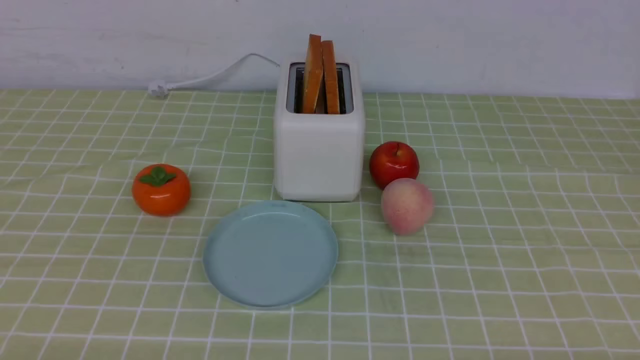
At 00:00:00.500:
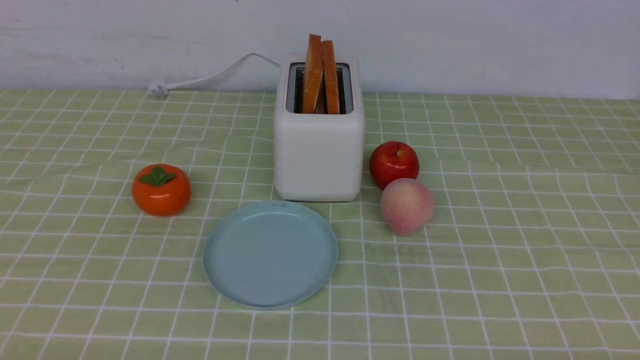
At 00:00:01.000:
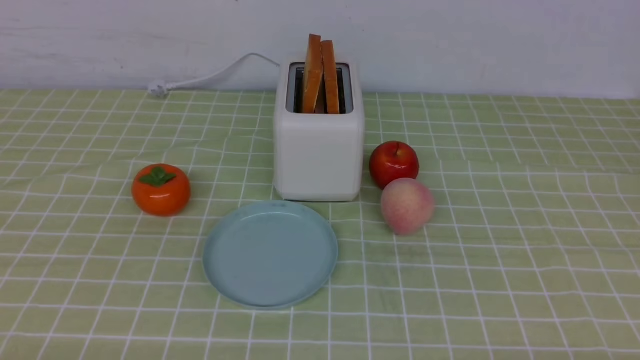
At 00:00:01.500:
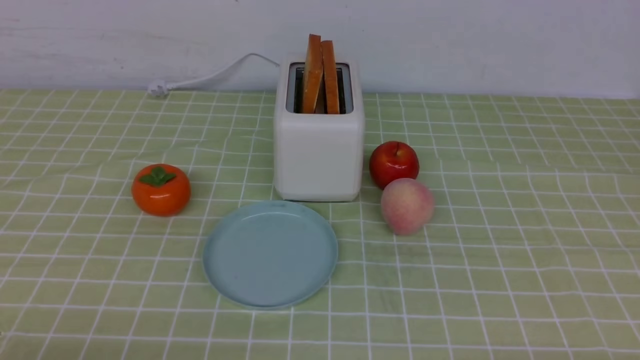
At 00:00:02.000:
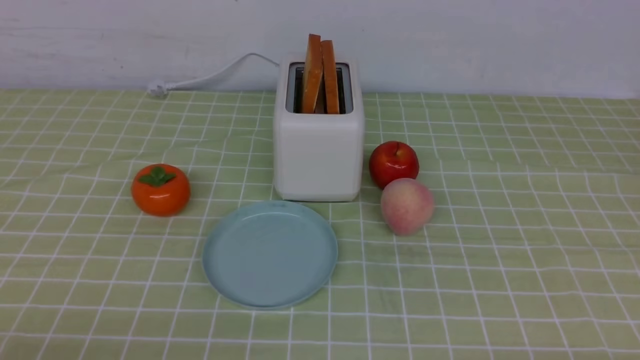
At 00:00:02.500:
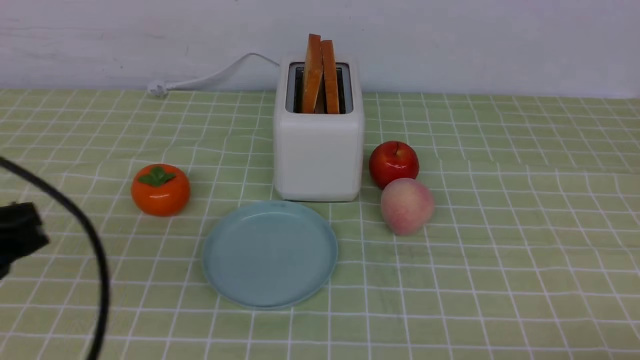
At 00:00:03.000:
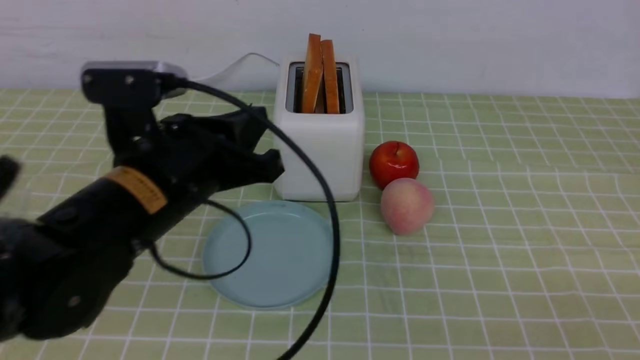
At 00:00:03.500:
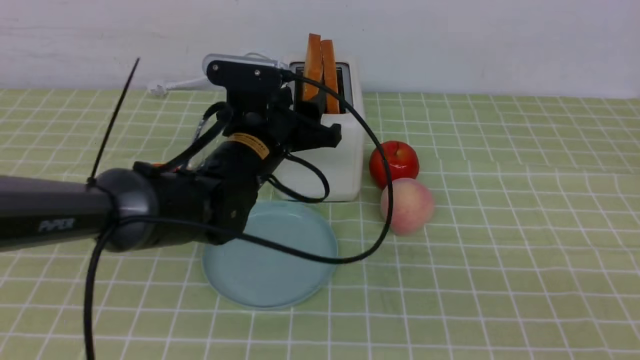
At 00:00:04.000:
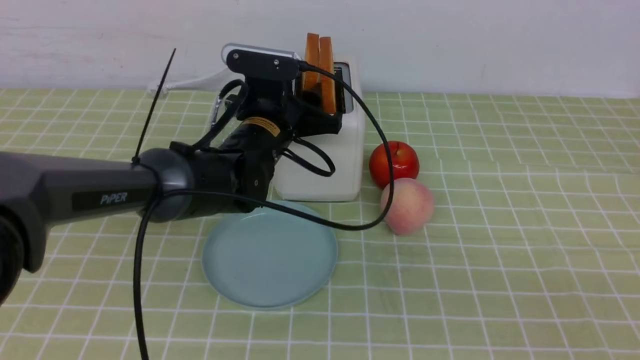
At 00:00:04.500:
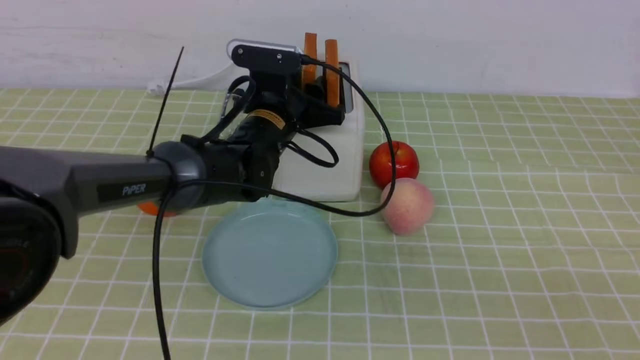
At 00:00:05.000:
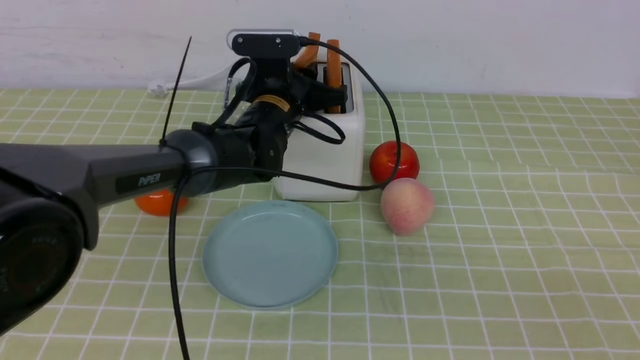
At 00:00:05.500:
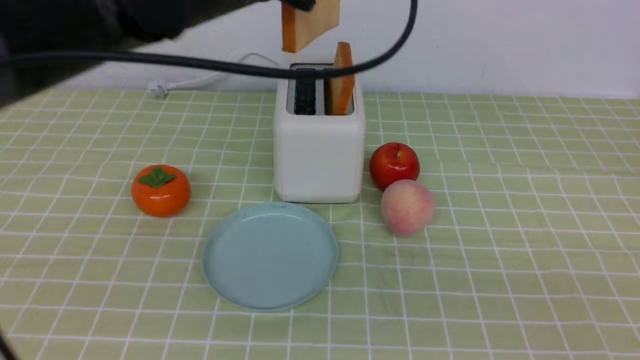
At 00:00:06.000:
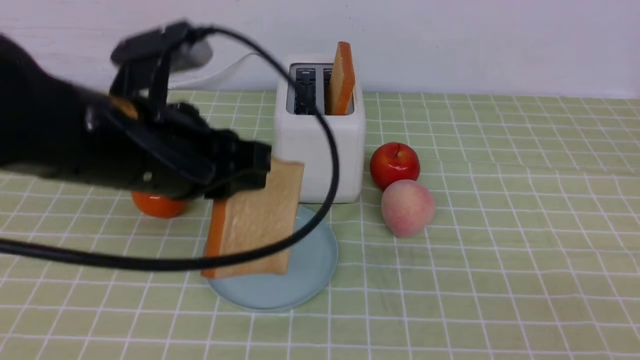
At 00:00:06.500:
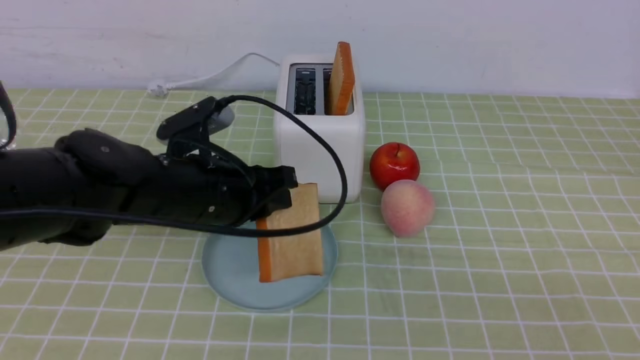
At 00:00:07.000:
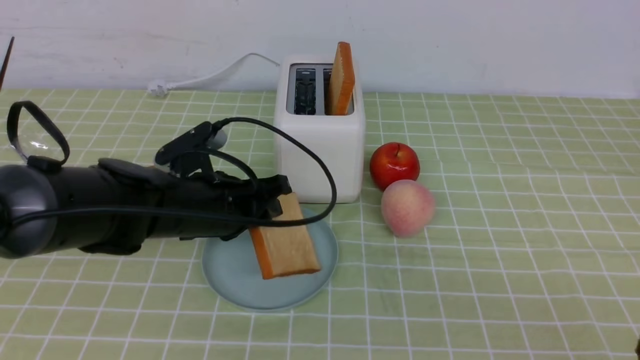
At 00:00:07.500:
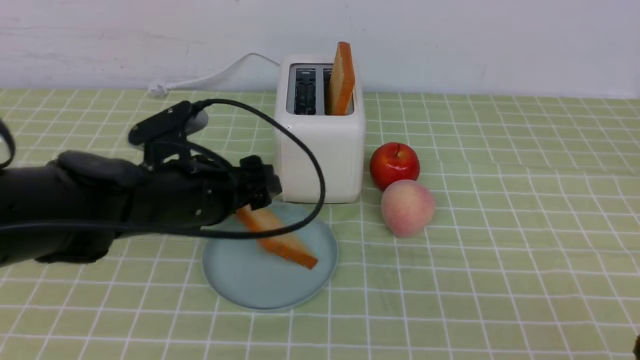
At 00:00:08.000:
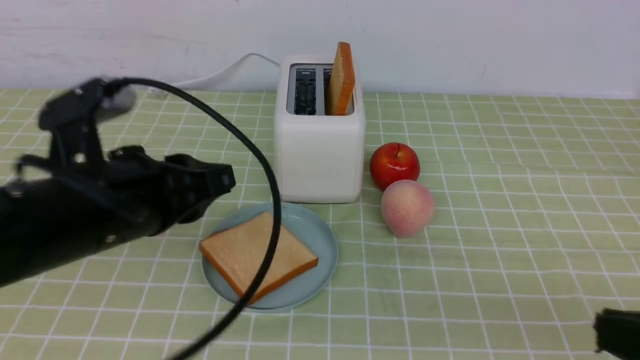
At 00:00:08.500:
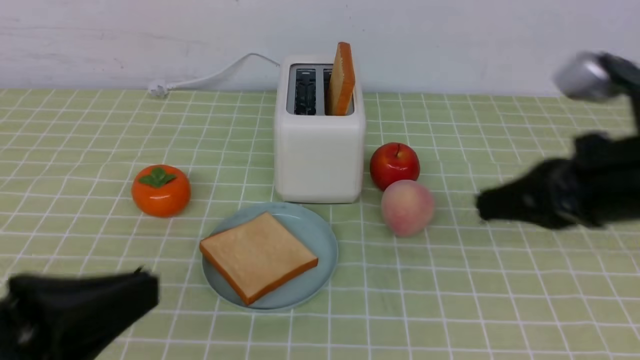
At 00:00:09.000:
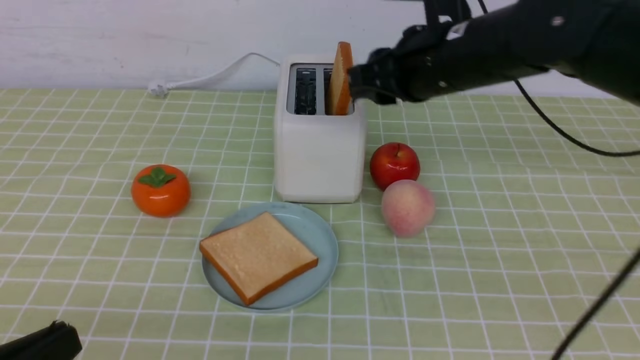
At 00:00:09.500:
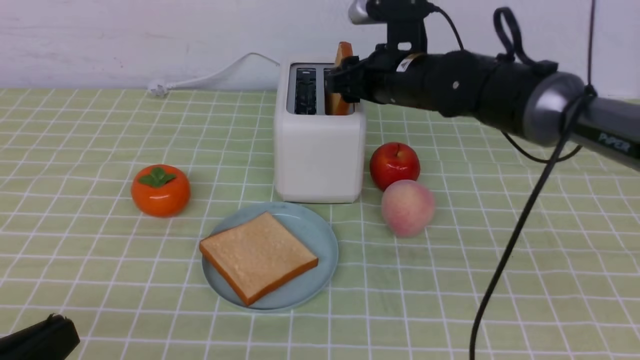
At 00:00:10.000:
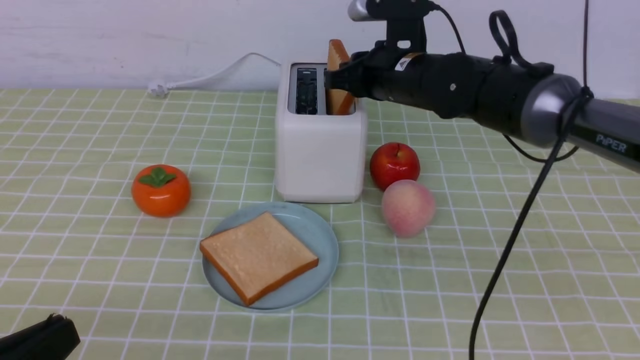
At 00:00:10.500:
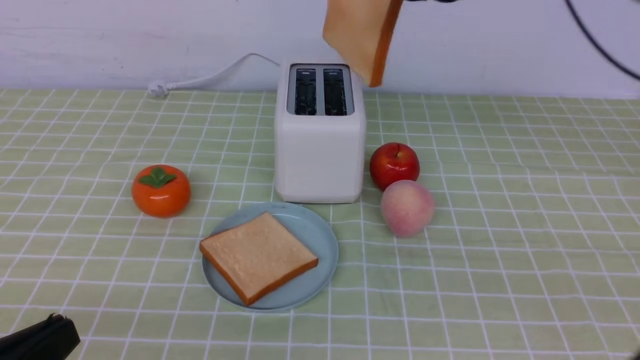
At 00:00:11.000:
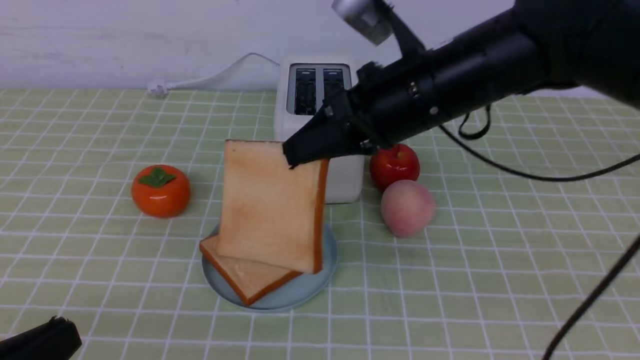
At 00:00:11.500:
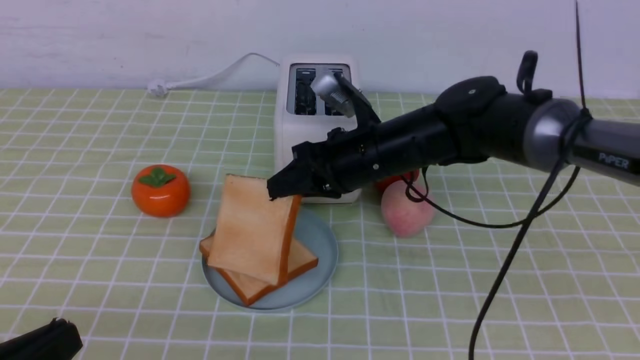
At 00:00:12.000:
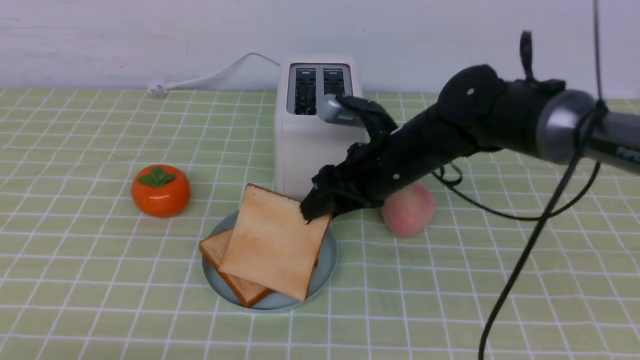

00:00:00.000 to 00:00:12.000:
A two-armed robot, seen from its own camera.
Task of the whole recording: take toasted bread from bread machine on green coffee tablecloth place on plate.
Step, 00:00:00.000 to 00:00:05.000: use the left arm to take out a slice of bread.
Step, 00:00:05.500 to 00:00:07.500: use the left arm to put a slice of bread into the empty plate.
Step, 00:00:08.000 to 00:00:10.000: use the right arm to take out a slice of bread.
00:00:02.000 to 00:00:04.000: The left gripper heads forward and to the right, covering some 40 cm, and opens up. Meanwhile the right gripper goes some 15 cm upward, and closes.
00:00:04.000 to 00:00:06.000: The left gripper heads backward, upward and to the left, covering about 20 cm, and closes up.
00:00:06.000 to 00:00:08.000: The left gripper shifts approximately 5 cm backward, travels downward and back again, roughly 15 cm each way, and opens and closes again.
00:00:08.000 to 00:00:10.000: The left gripper is displaced backward and to the left by roughly 15 cm. The right gripper goes approximately 40 cm forward and to the left, and opens, then closes once more.
00:00:10.000 to 00:00:12.000: The left gripper shifts about 5 cm downward, while the right gripper shifts some 10 cm backward, goes upward and returns, approximately 10 cm each way, and opens its fingers.

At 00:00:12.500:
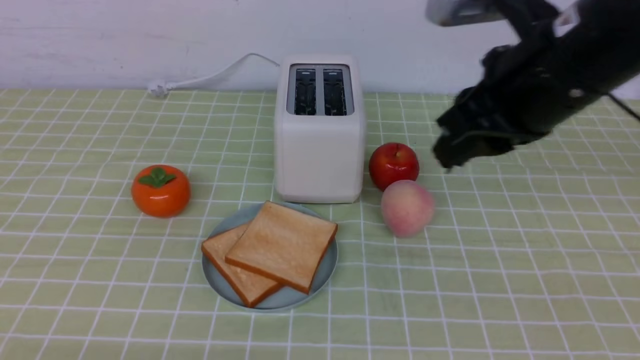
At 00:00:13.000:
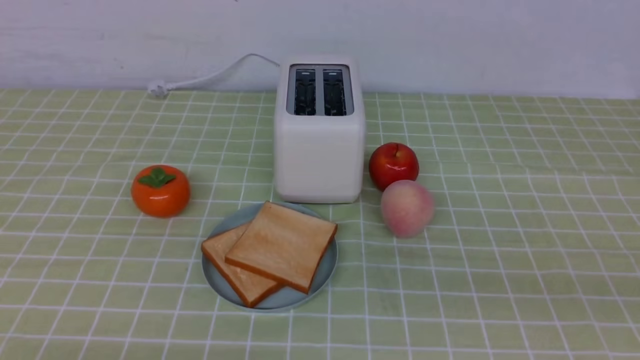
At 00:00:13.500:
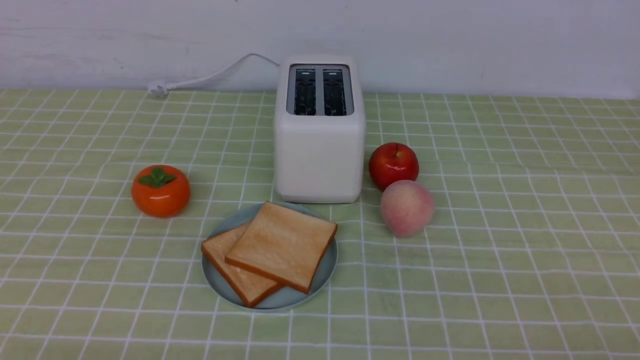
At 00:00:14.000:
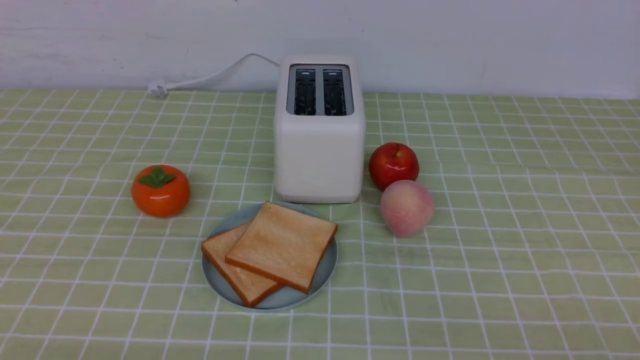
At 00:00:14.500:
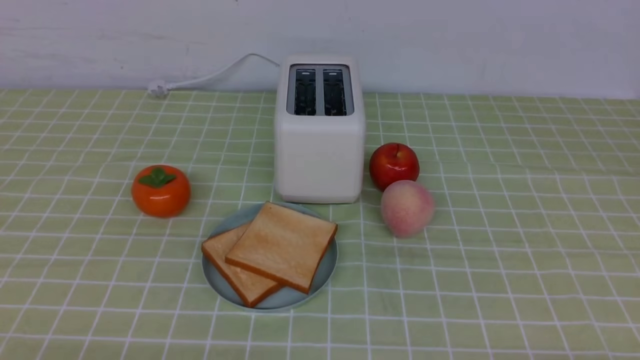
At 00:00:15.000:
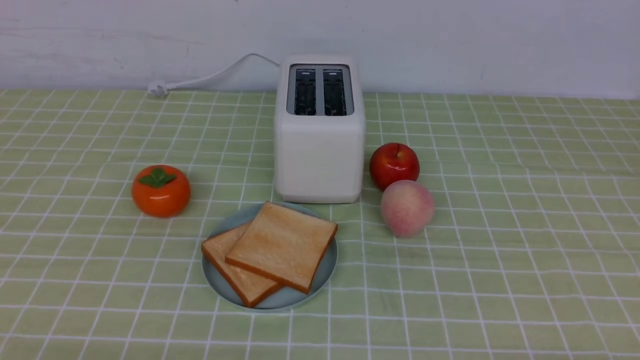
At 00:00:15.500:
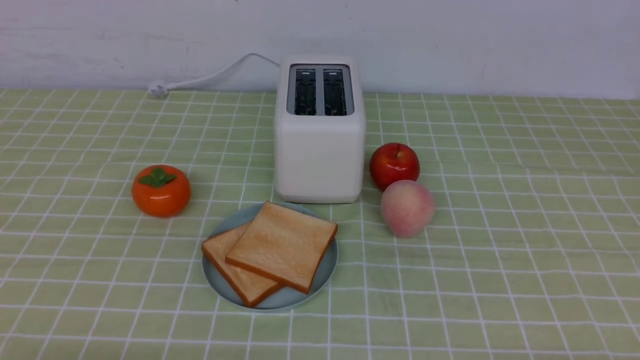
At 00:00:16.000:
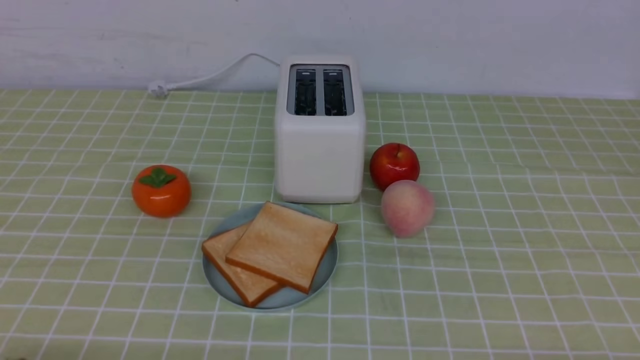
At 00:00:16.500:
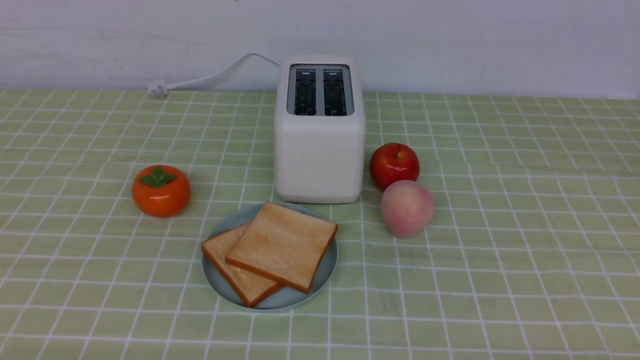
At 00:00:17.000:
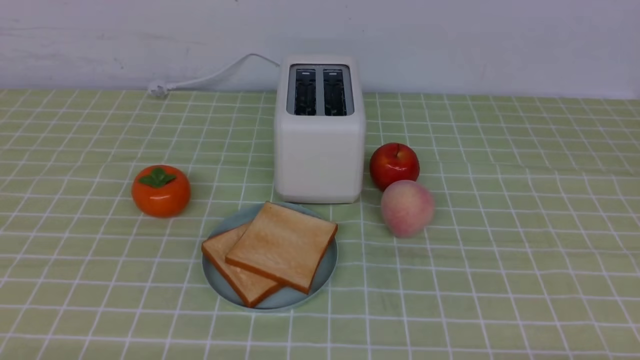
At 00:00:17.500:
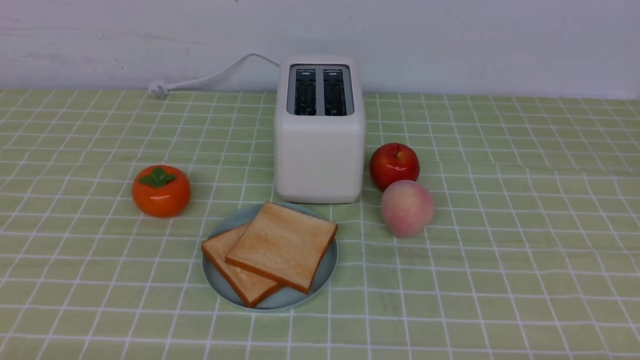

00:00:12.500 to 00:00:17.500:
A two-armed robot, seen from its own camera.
Task of the whole recording: take toasted bread from bread machine on green coffee tablecloth place on plate.
00:00:12.500 to 00:00:15.000: The right gripper travels downward, backward and to the right by about 35 cm, and closes its fingers.

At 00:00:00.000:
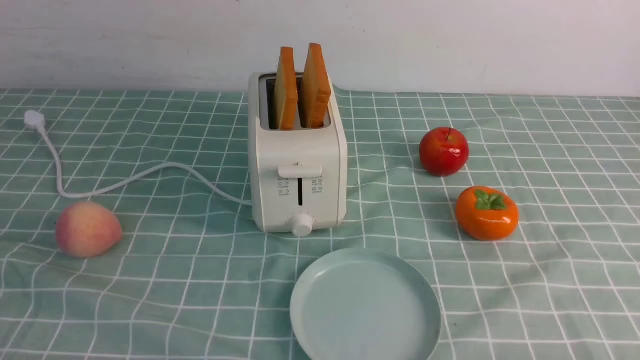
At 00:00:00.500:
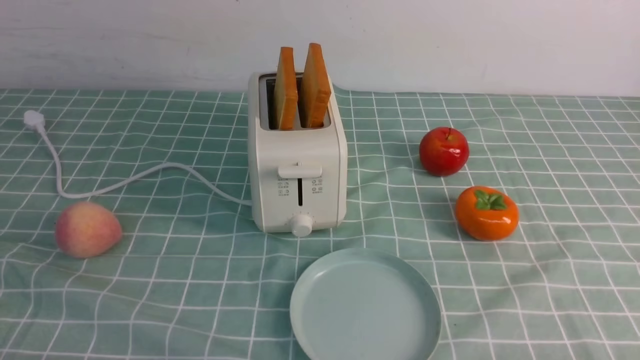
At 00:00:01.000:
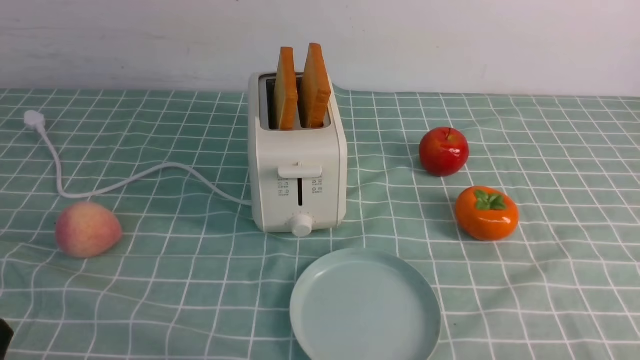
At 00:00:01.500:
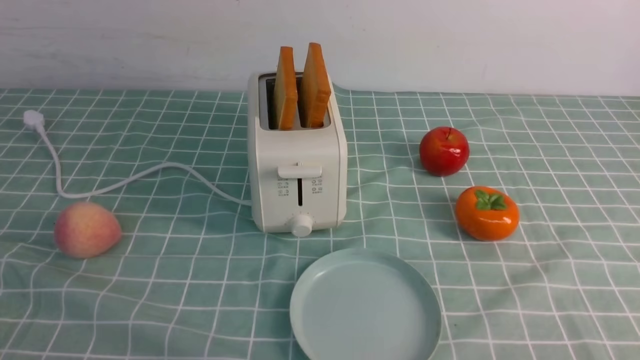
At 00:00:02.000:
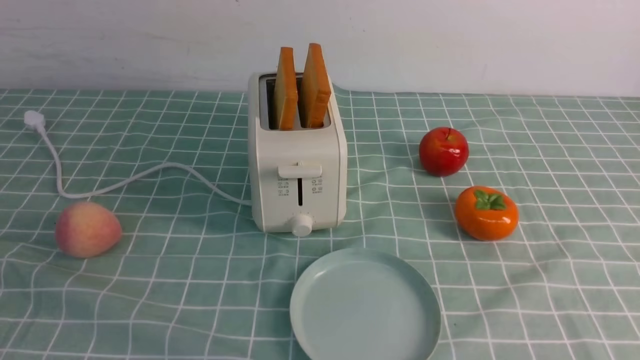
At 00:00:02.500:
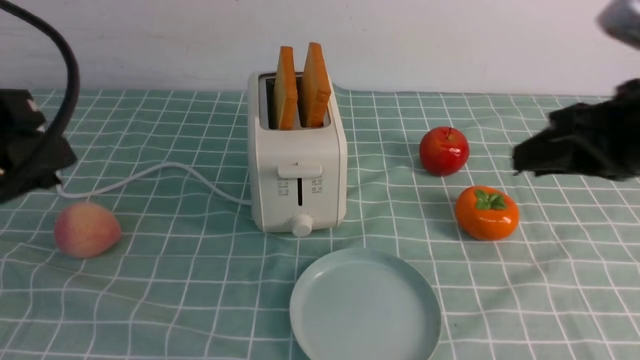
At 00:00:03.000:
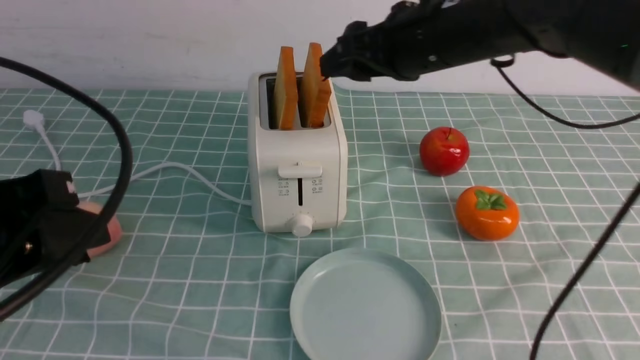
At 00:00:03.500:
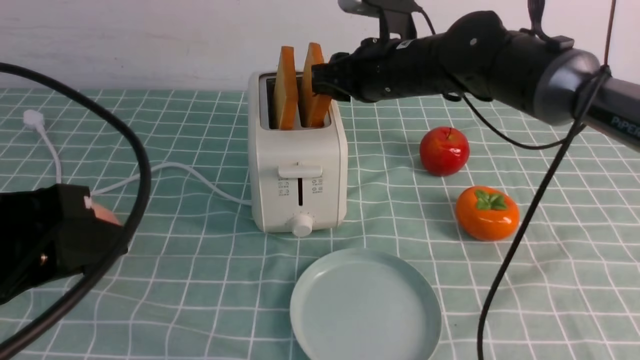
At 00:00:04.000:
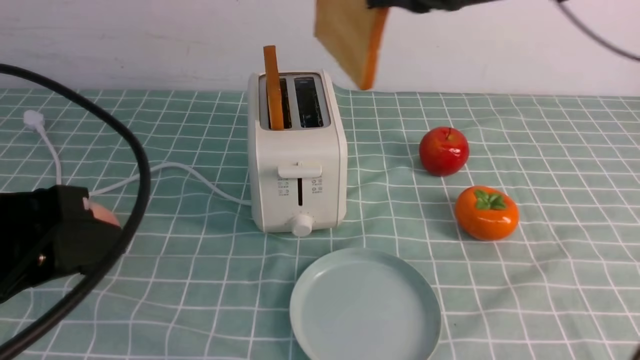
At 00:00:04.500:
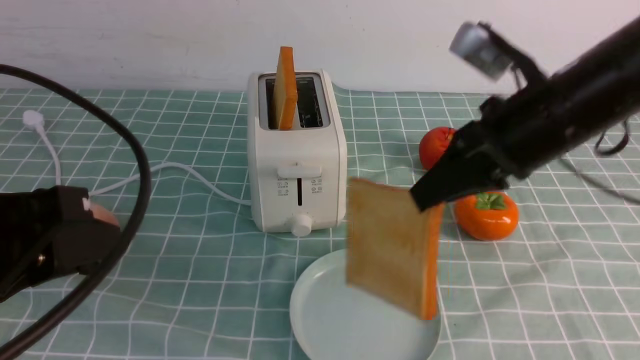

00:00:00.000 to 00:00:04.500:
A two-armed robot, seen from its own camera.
Task of the whole recording: take toasted bread from bread machine on blue coffee table place on plate.
Step, 00:00:00.000 to 00:00:03.500: use the right arm to take out a slice of bread.
00:00:02.000 to 00:00:04.500: The left gripper moves downward, approximately 5 cm; the right gripper is displaced forward, downward and to the left by some 25 cm, and opens, then closes once more.
